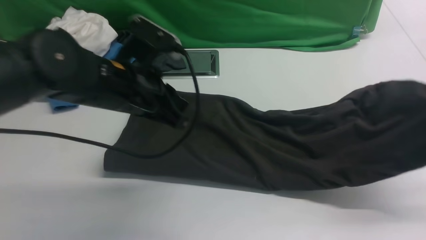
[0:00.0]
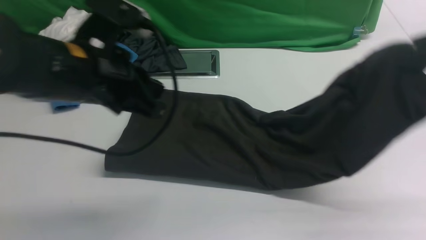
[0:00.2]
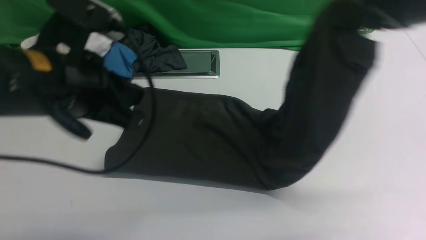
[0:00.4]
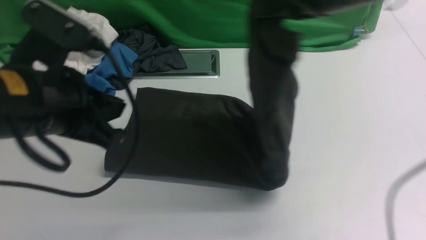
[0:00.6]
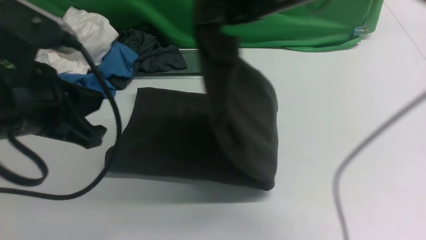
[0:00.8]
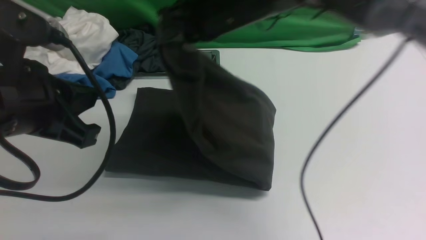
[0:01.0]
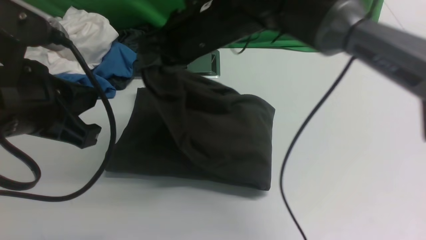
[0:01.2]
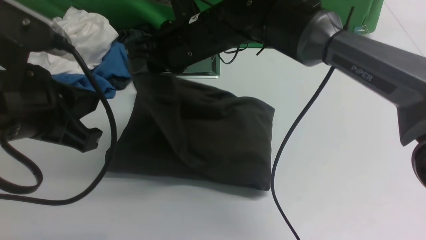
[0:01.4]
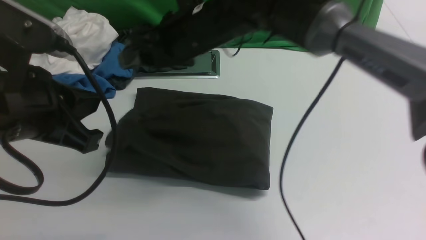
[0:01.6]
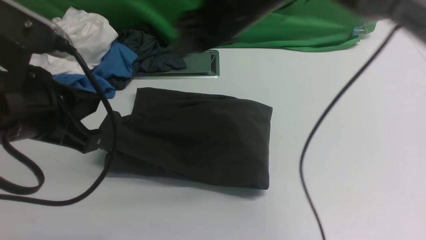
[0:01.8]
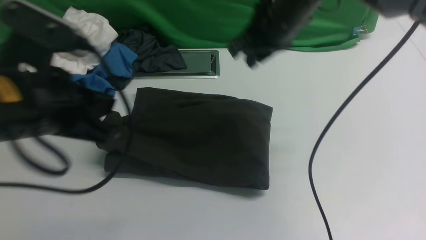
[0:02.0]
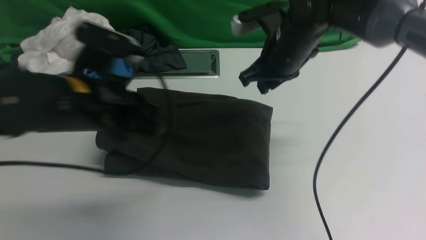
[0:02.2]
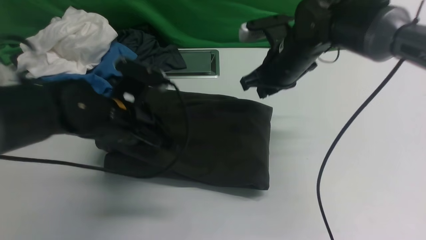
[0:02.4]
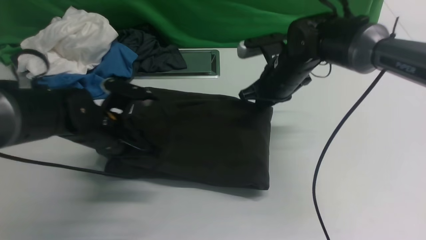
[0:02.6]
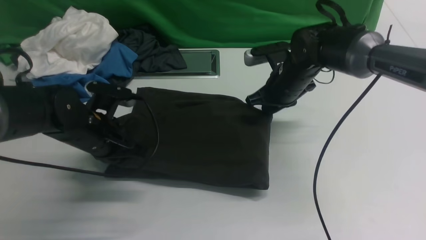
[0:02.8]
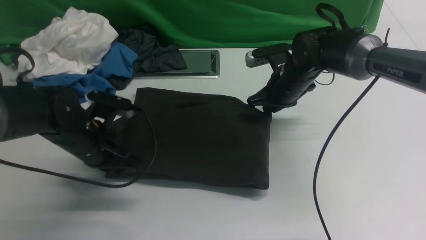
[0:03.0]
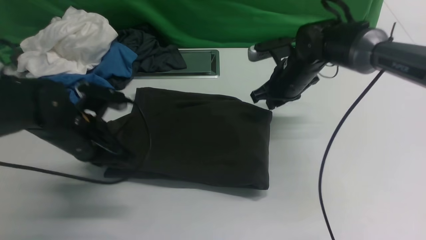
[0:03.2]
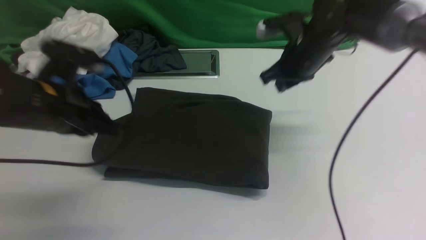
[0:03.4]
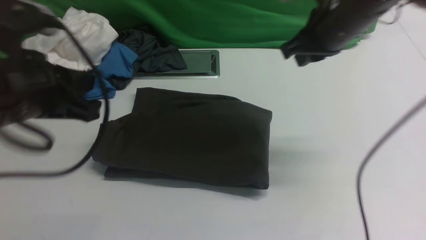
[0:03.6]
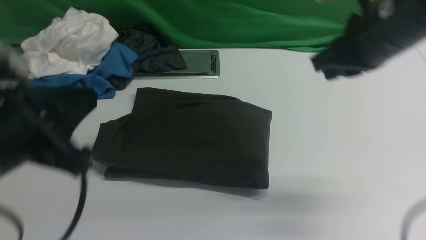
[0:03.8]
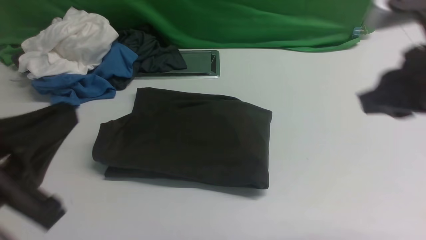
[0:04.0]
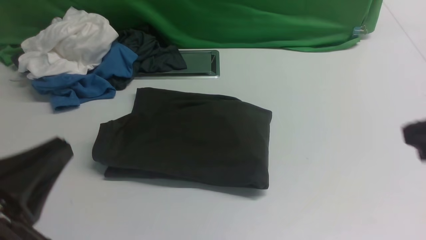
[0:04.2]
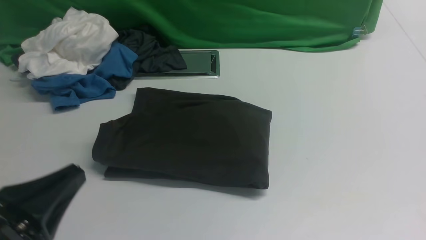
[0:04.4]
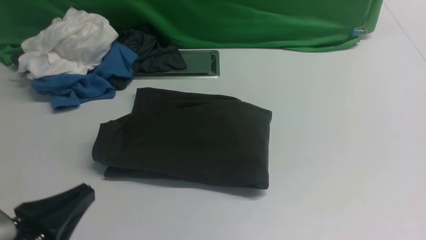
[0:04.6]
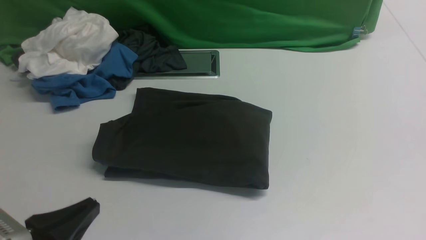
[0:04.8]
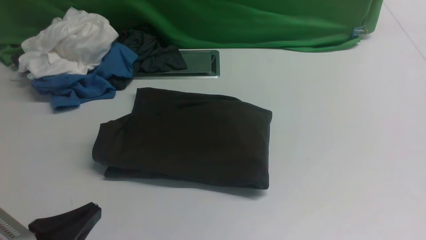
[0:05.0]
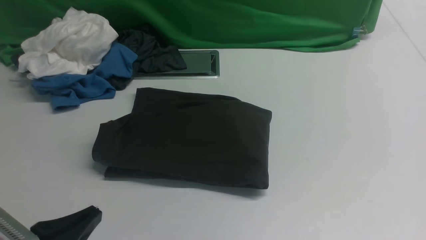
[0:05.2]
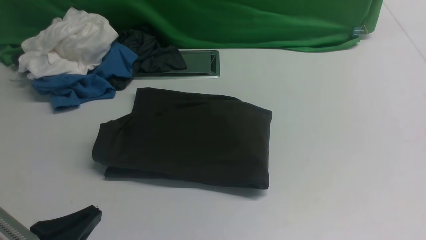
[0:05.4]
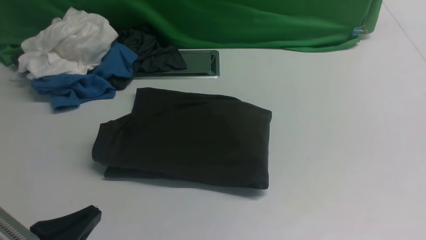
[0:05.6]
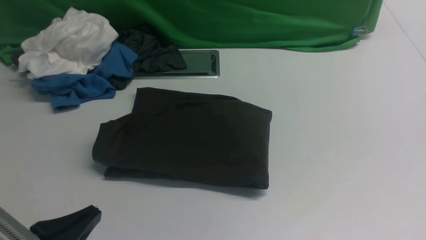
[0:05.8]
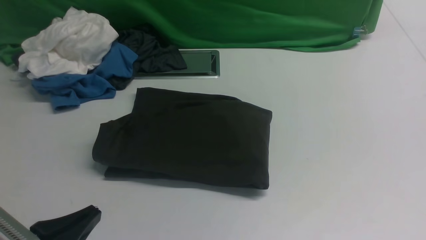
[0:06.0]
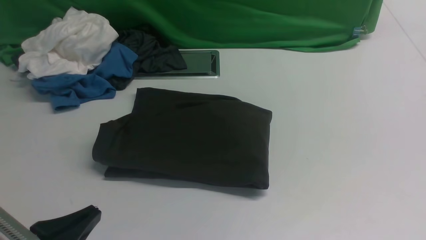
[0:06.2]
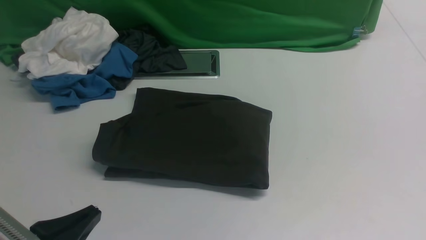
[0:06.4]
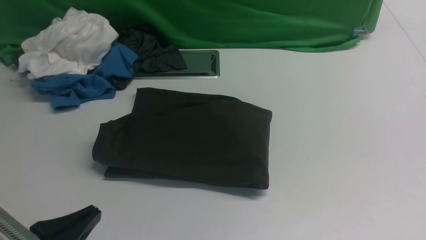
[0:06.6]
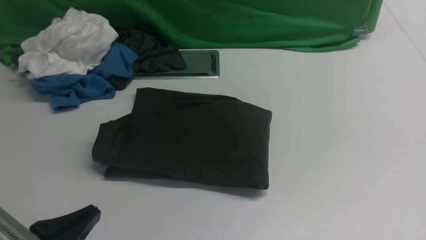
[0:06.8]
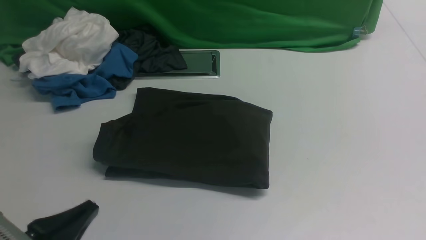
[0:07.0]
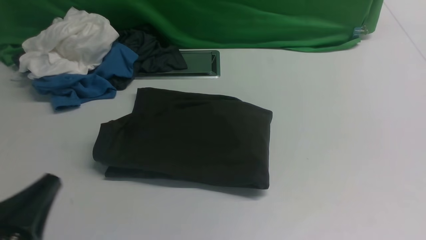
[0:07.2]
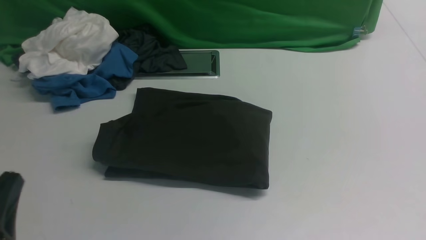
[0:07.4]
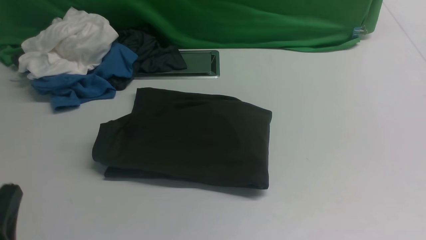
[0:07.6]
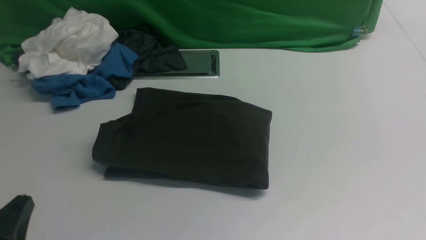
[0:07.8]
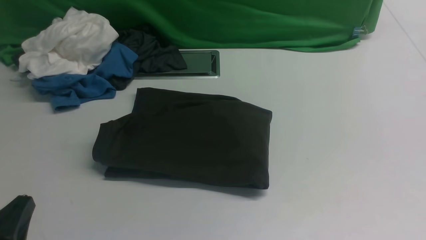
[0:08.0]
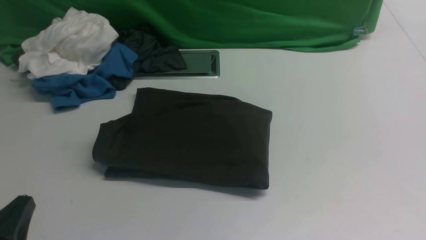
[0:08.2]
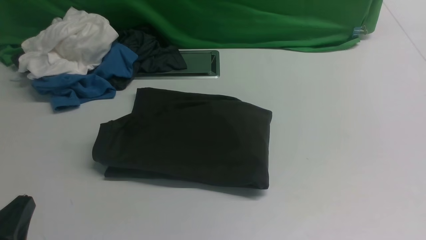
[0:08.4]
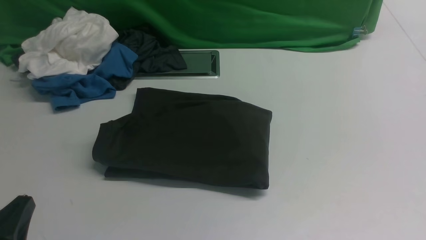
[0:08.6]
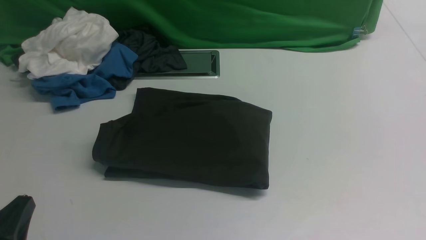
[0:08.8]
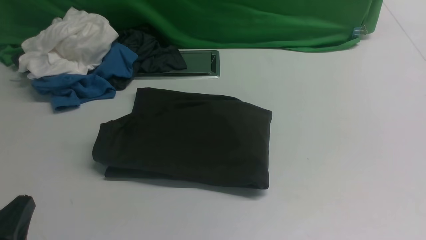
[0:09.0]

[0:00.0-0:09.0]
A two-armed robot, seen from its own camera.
Step, 0:00.0 to 0:01.8: use the right arm to drag the right edge of the fabric to the left and folds it over the left edge.
0:00.0 to 0:01.6: The right gripper is displaced to the left by about 35 cm, and opens its fingers. The left gripper travels backward, to the left and upward by some 15 cm.
0:01.6 to 0:03.0: The left gripper moves downward and forward, some 20 cm; the right gripper shifts approximately 20 cm downward and to the right, and closes its fingers.
0:03.0 to 0:04.4: The left gripper goes approximately 25 cm backward; the right gripper travels backward and upward by roughly 35 cm.
0:04.4 to 0:06.0: The left gripper is displaced downward by some 5 cm.
0:07.6 to 0:09.0: The grippers make only small movements.
